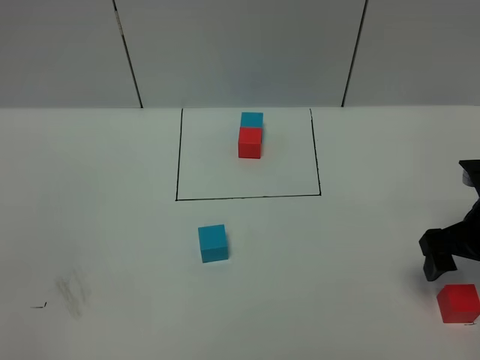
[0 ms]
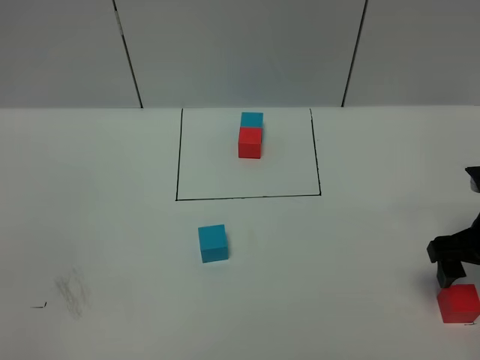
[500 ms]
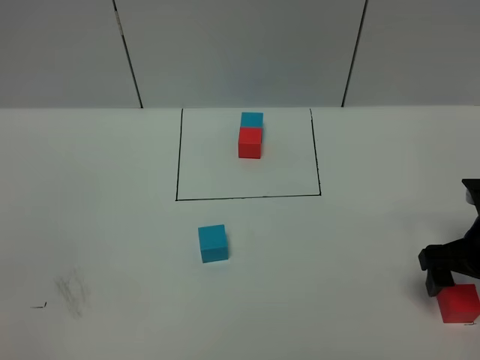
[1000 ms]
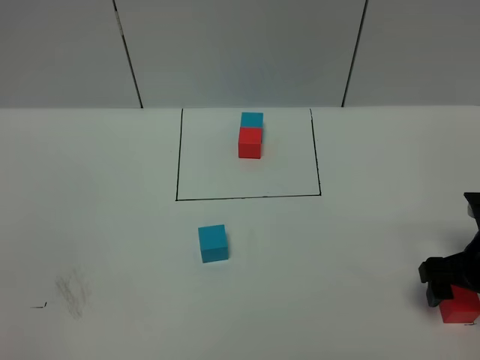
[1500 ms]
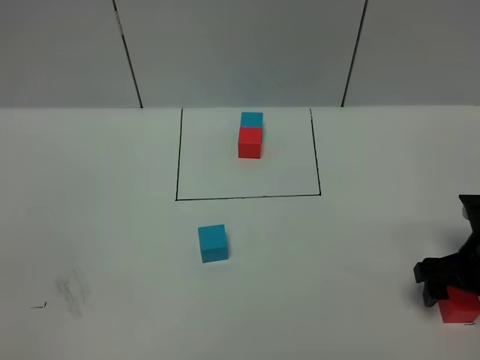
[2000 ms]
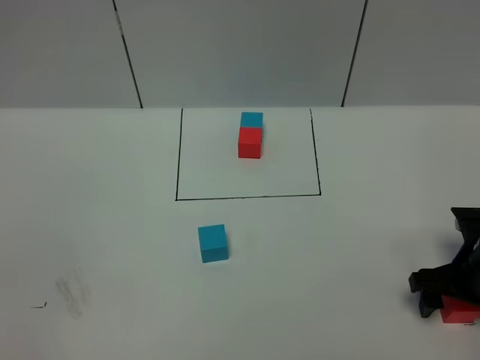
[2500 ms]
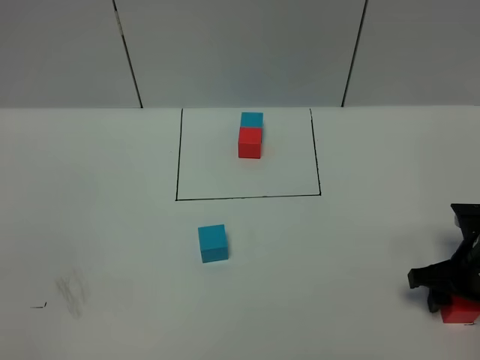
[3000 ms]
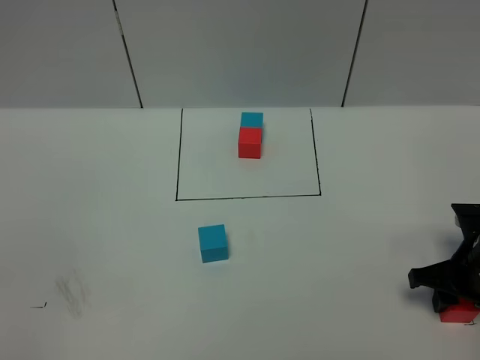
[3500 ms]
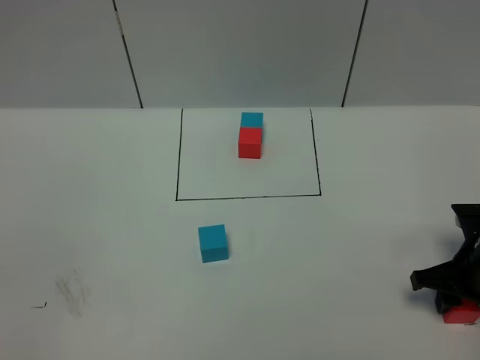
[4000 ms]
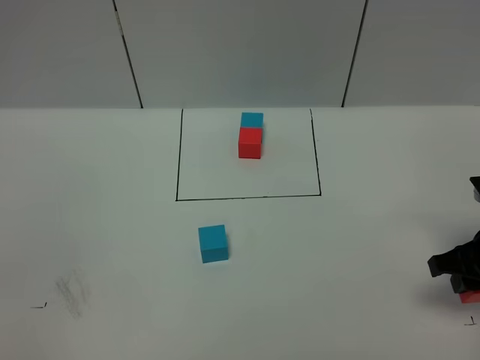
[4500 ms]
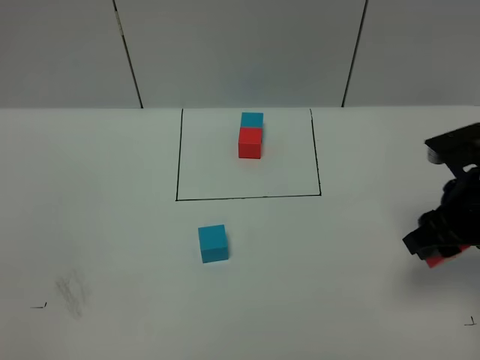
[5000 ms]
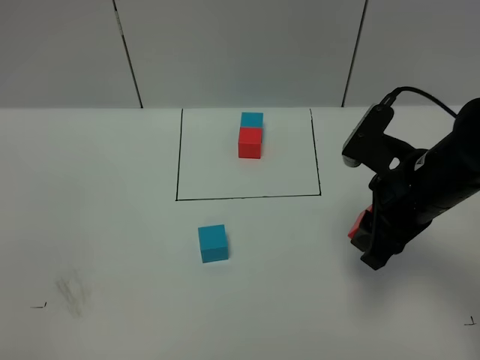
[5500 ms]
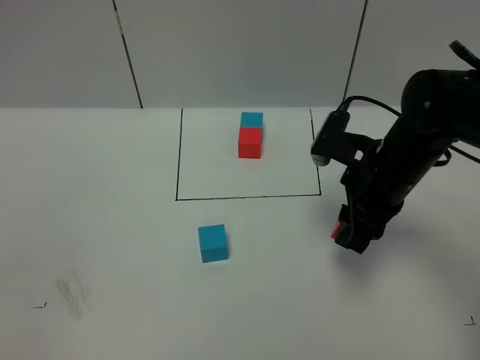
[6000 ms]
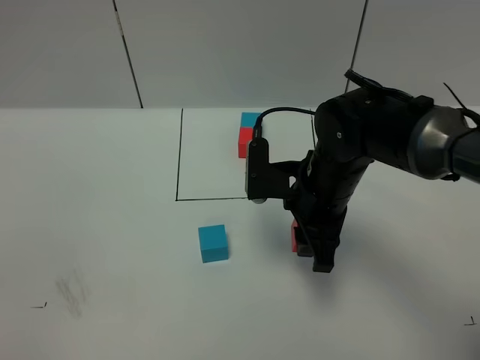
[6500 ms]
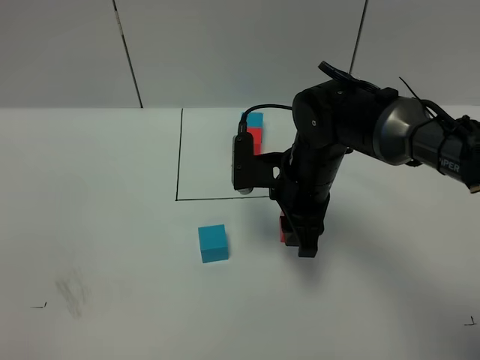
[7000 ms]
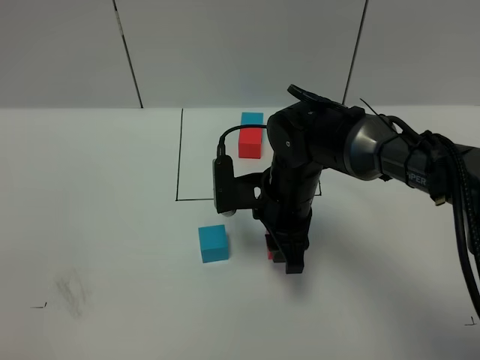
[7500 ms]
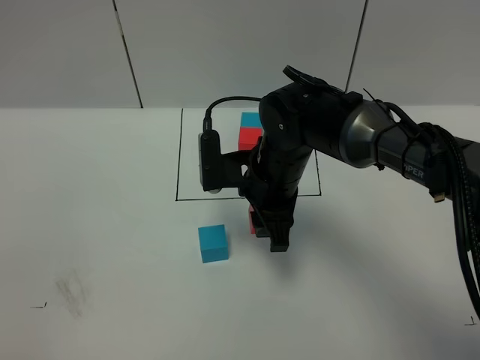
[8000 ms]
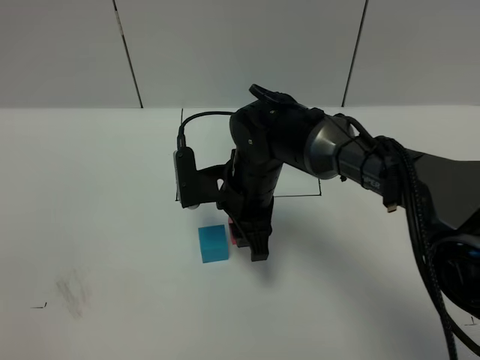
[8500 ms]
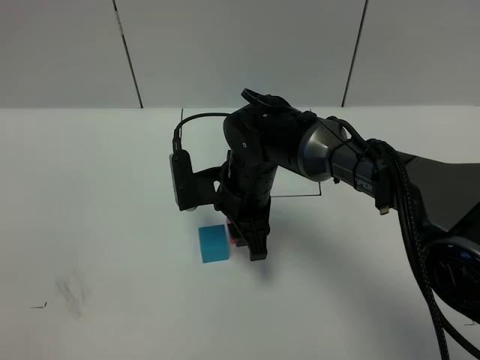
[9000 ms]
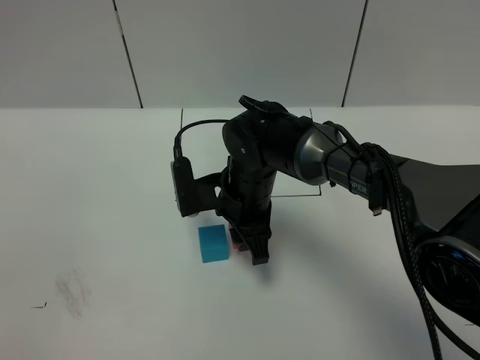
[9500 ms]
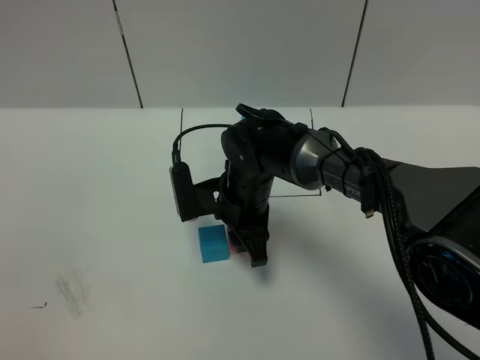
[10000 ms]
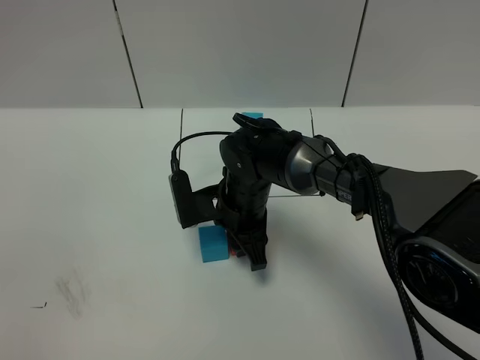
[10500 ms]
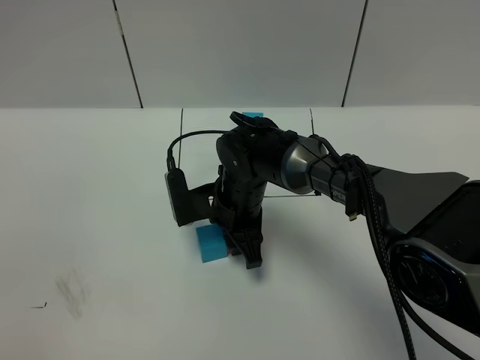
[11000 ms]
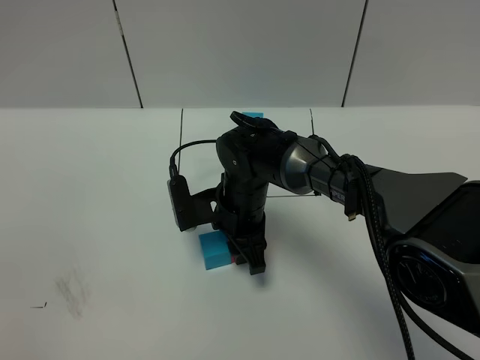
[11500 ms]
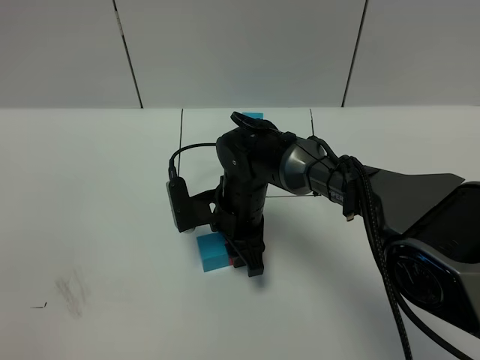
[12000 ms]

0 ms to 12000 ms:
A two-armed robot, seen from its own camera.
Task of the whole recording: According to the building block template in front, assemble the scattered blocks together.
0 ms to 2000 ms: The right gripper moves about 5 cm.
2000 ms to 4000 ms: The right gripper closes.
4000 ms to 6000 ms: The right gripper goes approximately 20 cm to the left, upward and forward.
6000 ms to 8000 ms: The right gripper shifts roughly 10 cm to the left.
8000 ms to 10000 ms: The right gripper shifts some 5 cm downward.
10000 ms to 12000 ms: The grippers stay close to where they were, moving slightly.

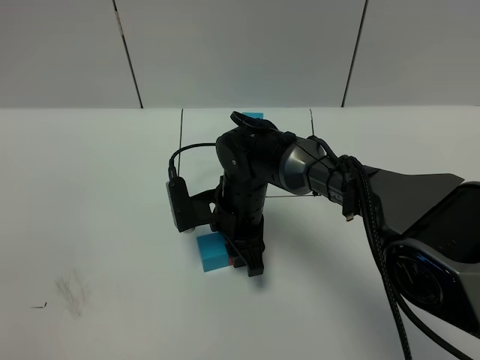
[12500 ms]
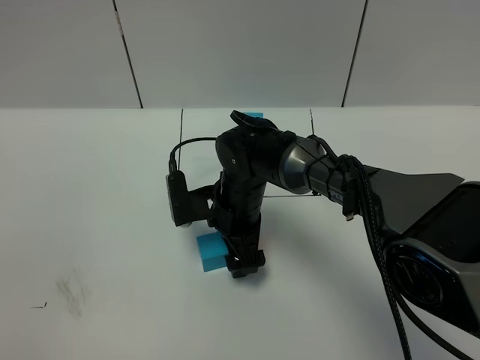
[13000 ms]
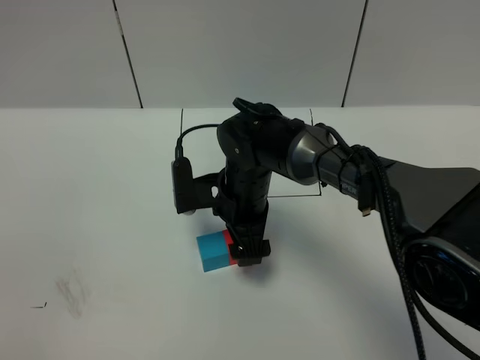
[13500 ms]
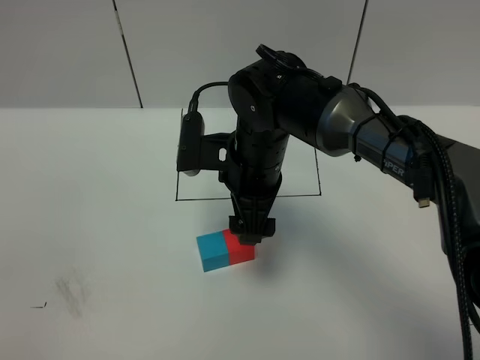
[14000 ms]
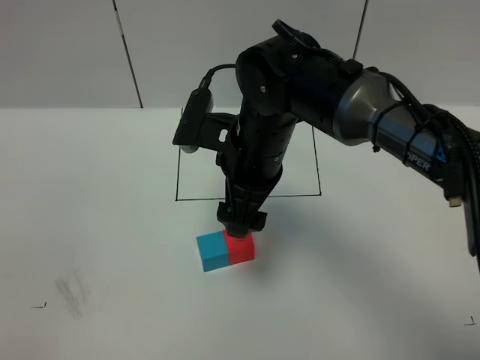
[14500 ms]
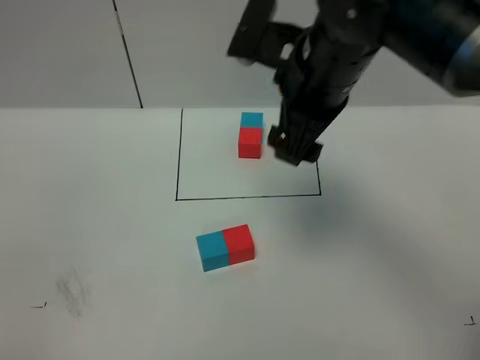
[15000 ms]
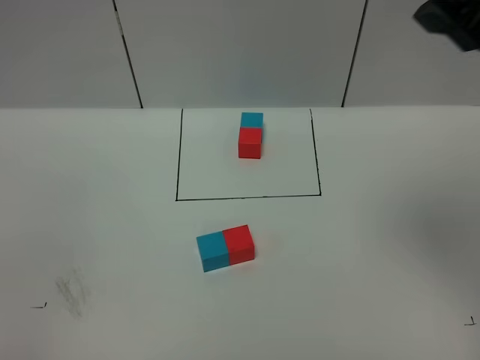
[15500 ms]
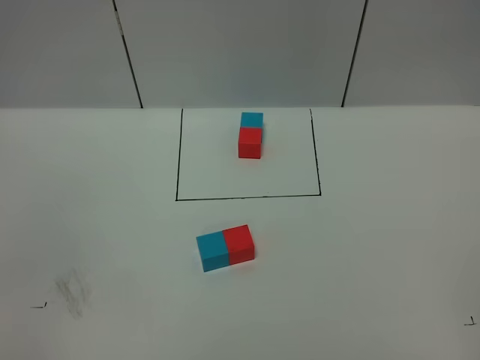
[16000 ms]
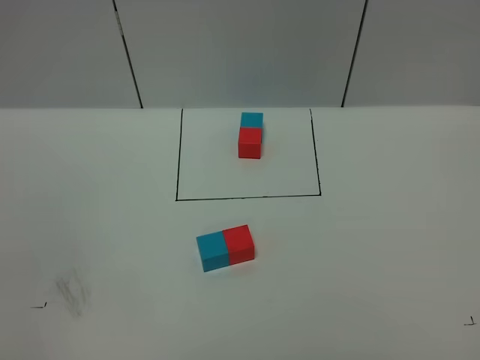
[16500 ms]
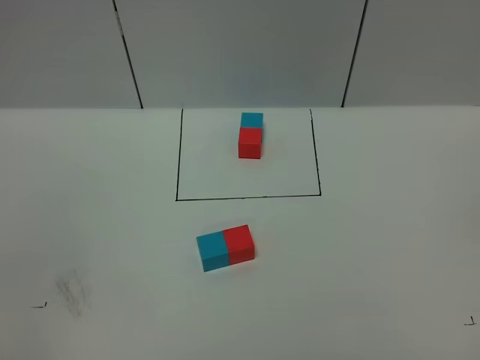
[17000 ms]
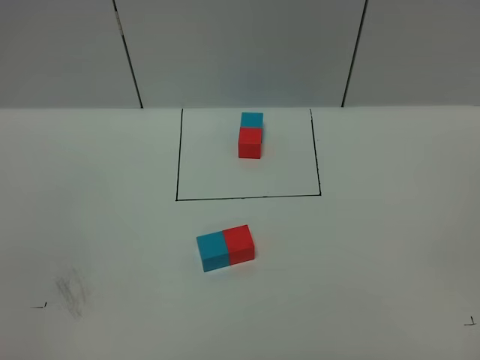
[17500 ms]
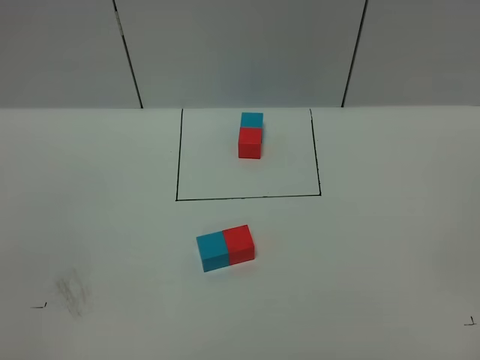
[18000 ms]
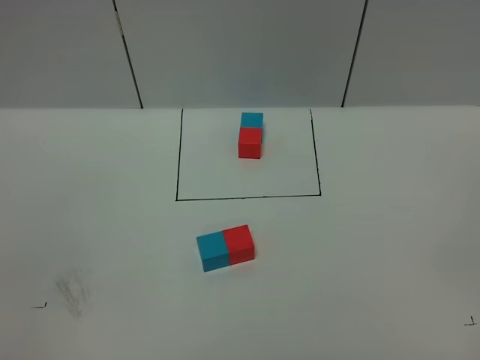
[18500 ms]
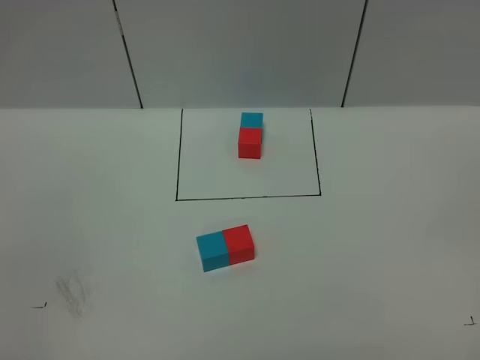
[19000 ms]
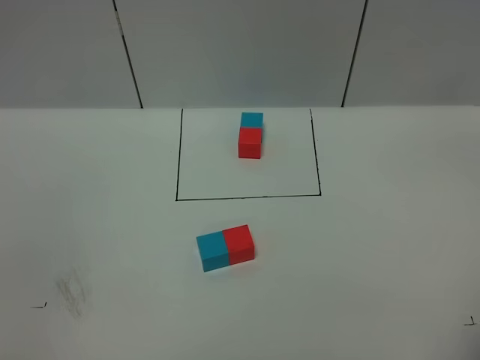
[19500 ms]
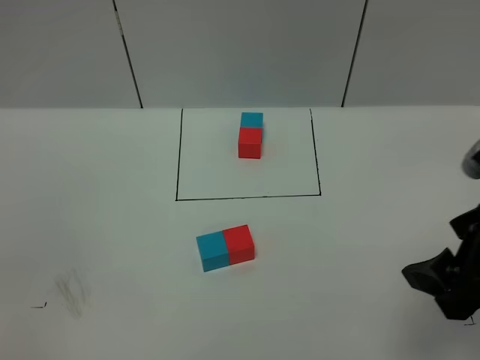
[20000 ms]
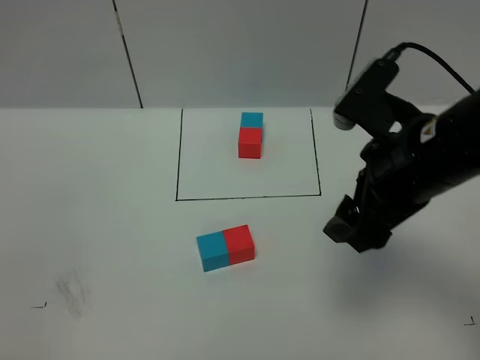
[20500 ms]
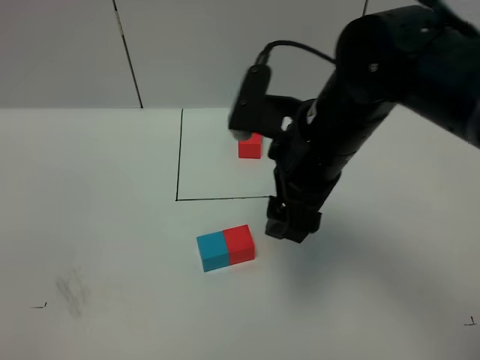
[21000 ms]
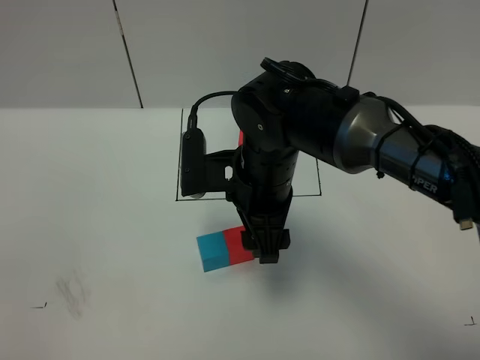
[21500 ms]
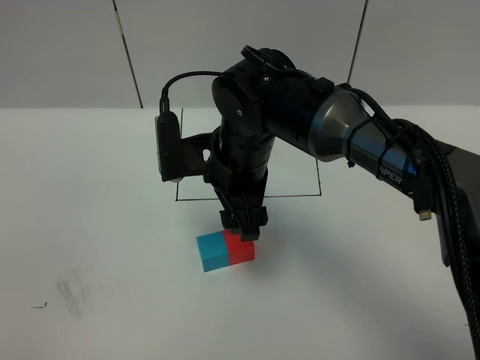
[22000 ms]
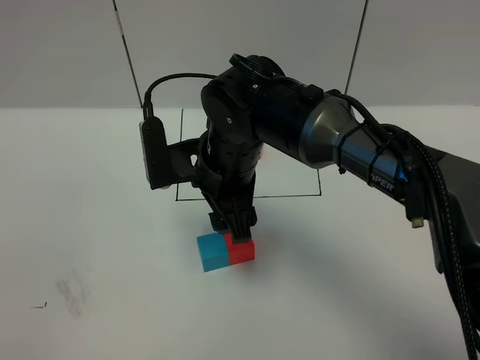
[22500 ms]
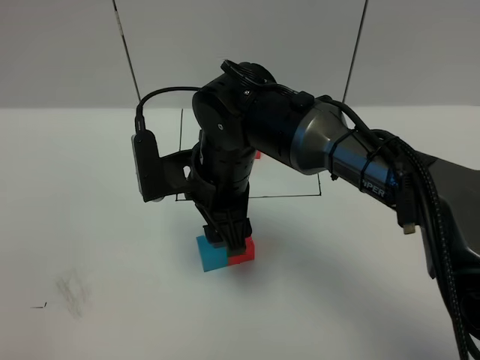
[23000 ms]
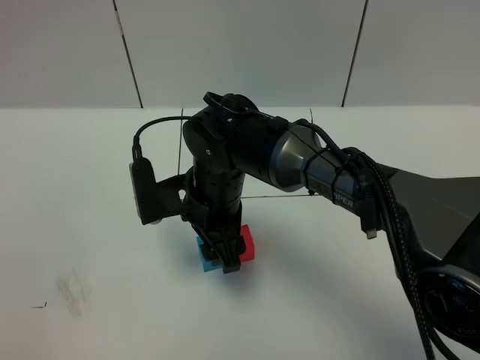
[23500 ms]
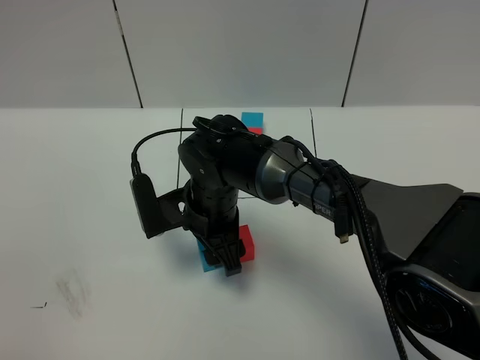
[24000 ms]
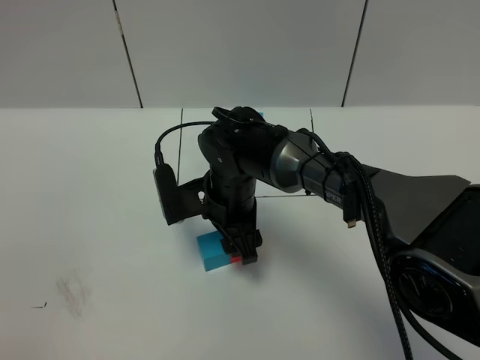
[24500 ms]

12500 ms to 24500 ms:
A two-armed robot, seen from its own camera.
Task of the whole recording: According to the building block template in front, assemble the scattered blocks together.
Step, 12500 ms to 14500 ms: Put the red cube on the right of the blue cube.
12500 ms to 14500 ms: The right gripper travels upward by approximately 15 cm, and opens.
14500 ms to 16500 ms: The right gripper moves backward, to the right and upward, roughly 50 cm.
18500 ms to 20500 ms: The right gripper travels forward and to the left by about 30 cm.
20500 ms to 22500 ms: The right gripper travels to the left and downward by roughly 20 cm.
22500 ms to 24500 ms: The right gripper heads downward, covering roughly 10 cm.

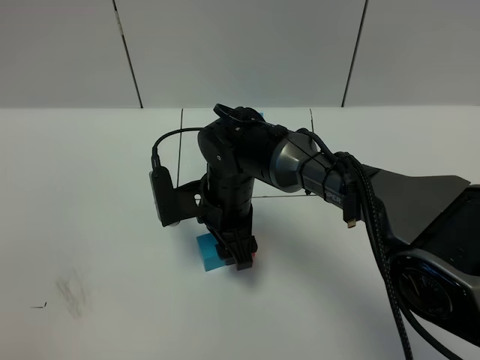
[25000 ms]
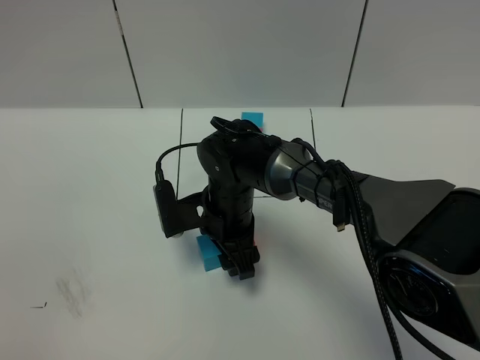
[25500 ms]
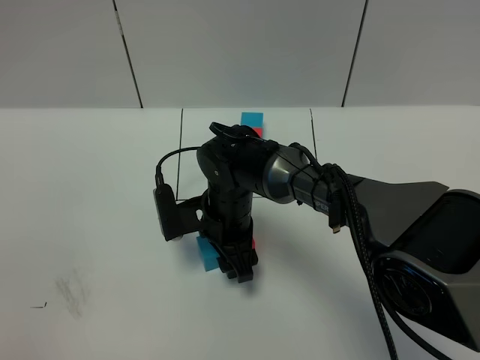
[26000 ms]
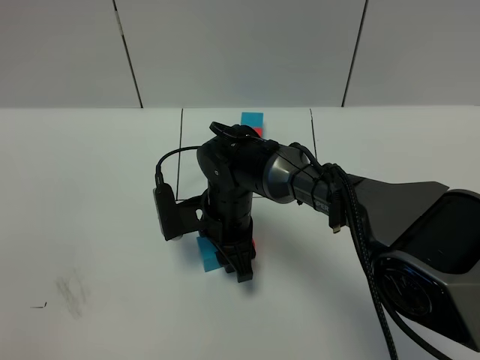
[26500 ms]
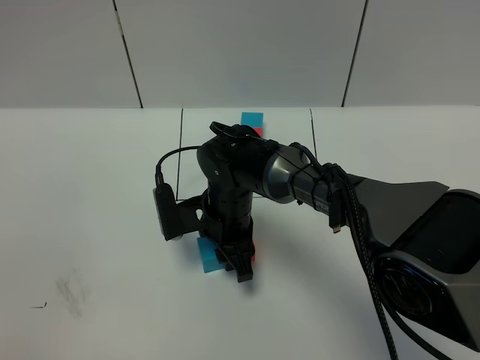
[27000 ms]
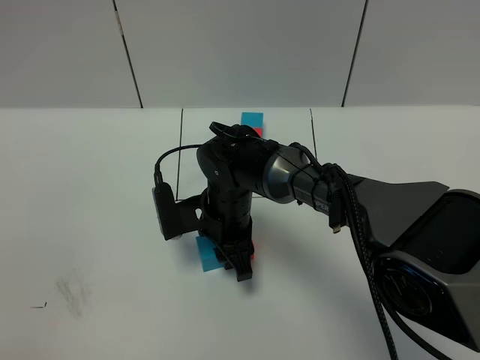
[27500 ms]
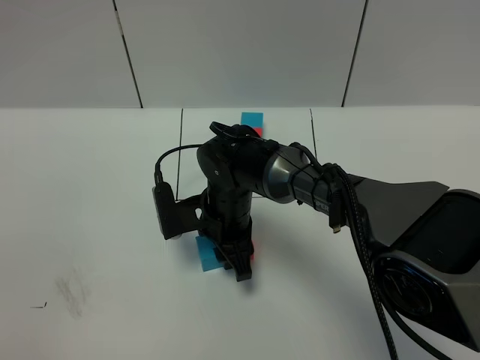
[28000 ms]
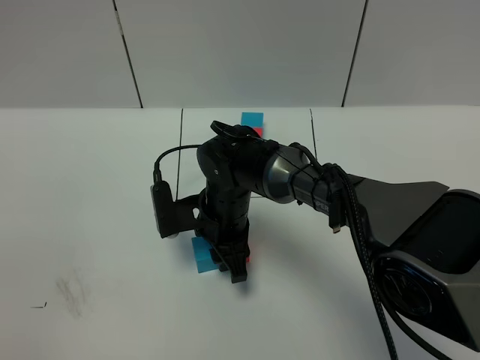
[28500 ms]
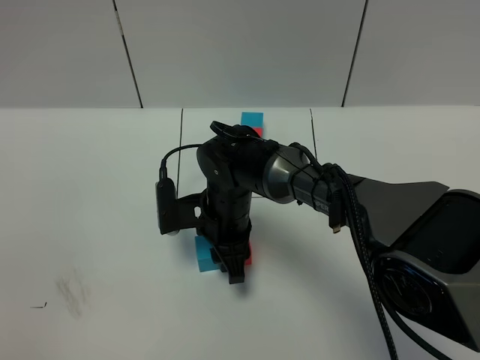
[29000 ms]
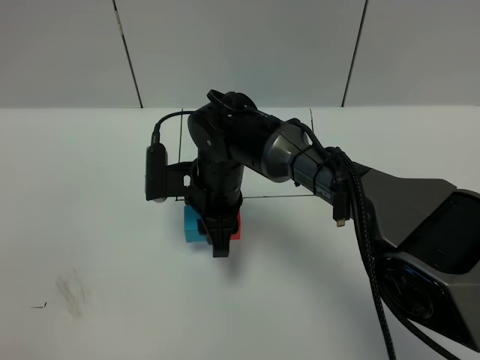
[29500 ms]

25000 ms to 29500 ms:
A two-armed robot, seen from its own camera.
Task of the whole recording: According to the building block template in front, assemble the scattered blocks together.
25000 ms to 27000 ms: The right gripper closes.
27000 ms to 29500 ms: The grippers move only a little.
